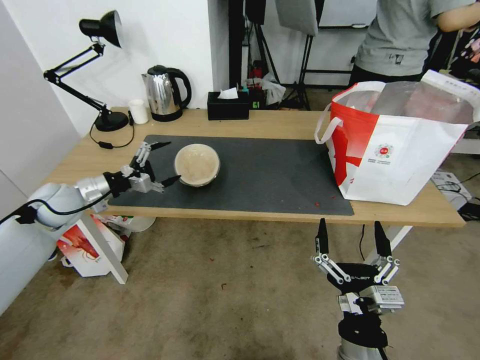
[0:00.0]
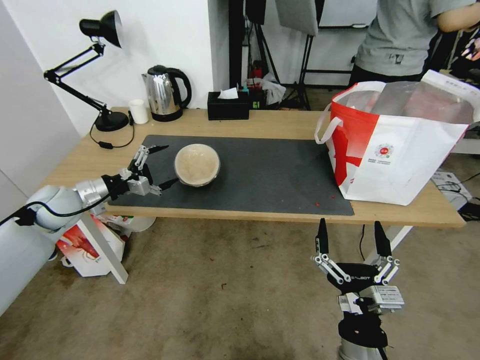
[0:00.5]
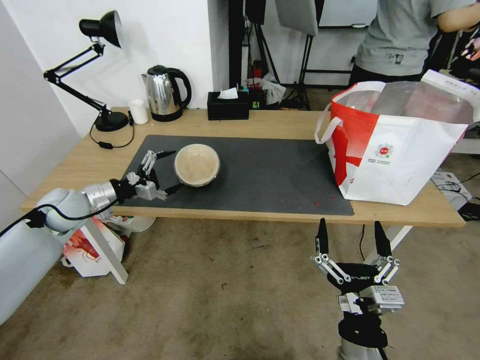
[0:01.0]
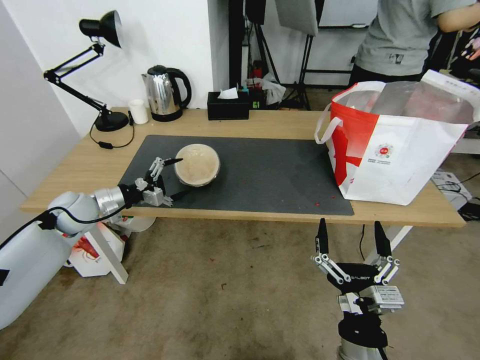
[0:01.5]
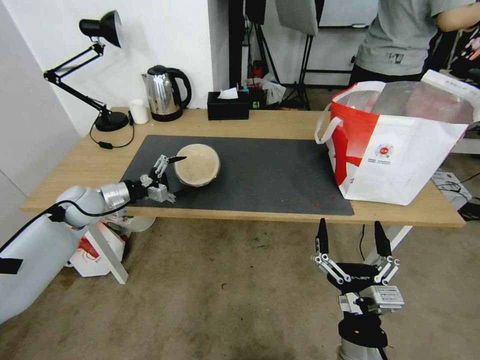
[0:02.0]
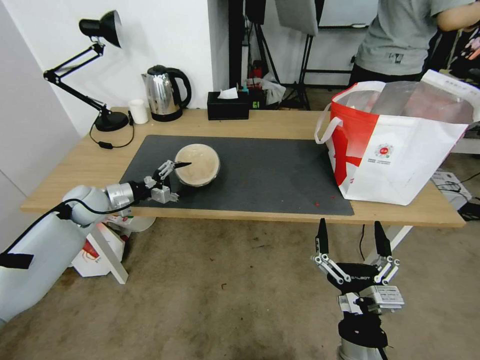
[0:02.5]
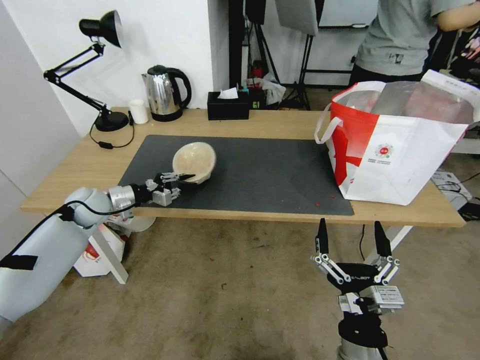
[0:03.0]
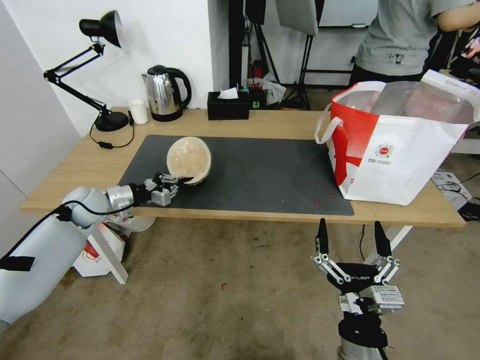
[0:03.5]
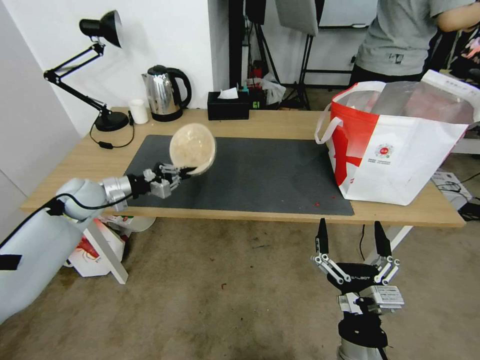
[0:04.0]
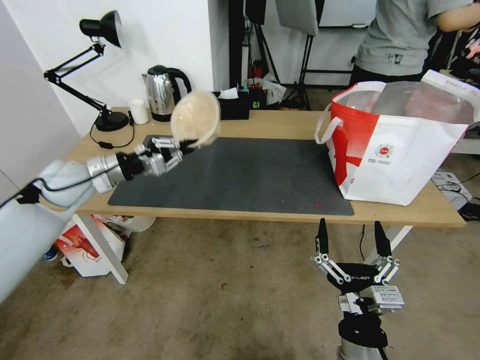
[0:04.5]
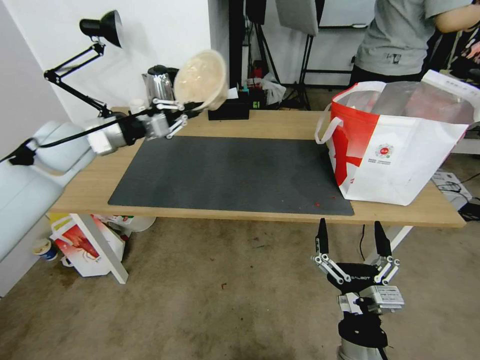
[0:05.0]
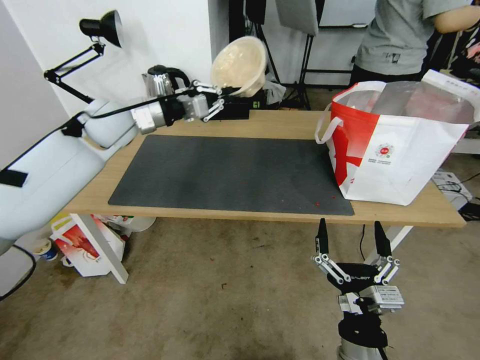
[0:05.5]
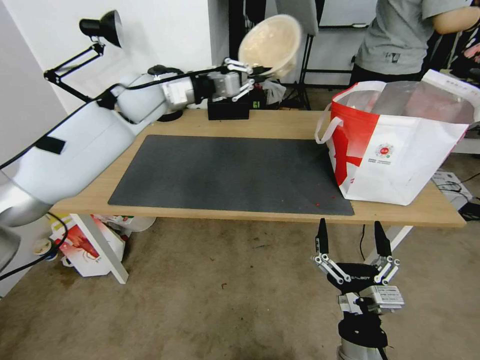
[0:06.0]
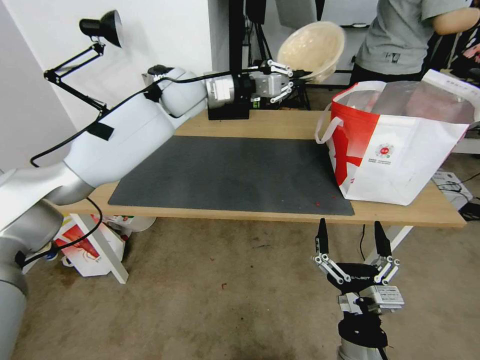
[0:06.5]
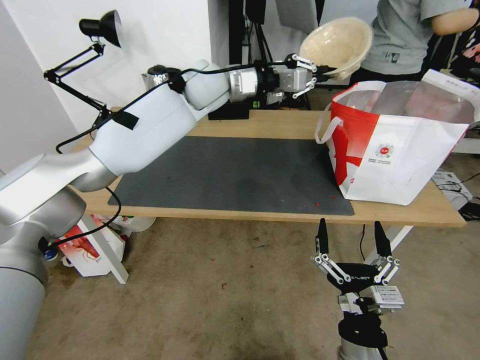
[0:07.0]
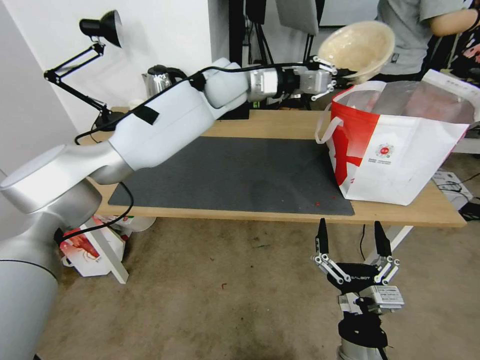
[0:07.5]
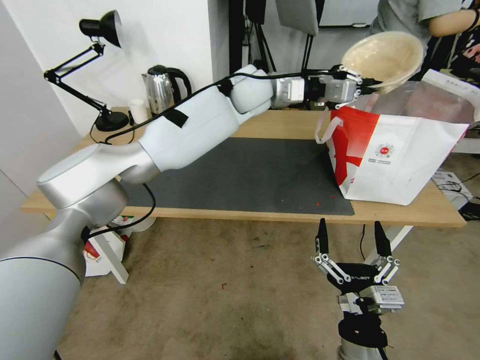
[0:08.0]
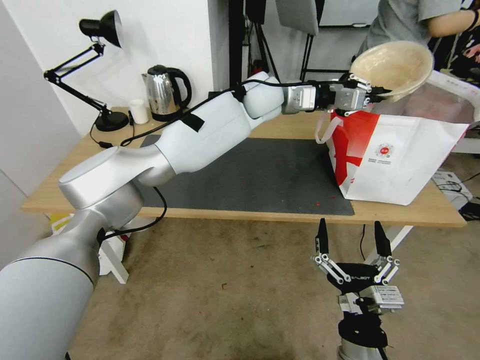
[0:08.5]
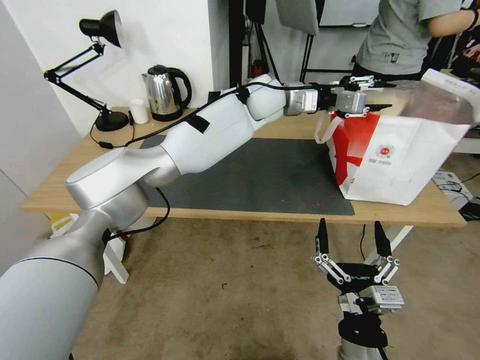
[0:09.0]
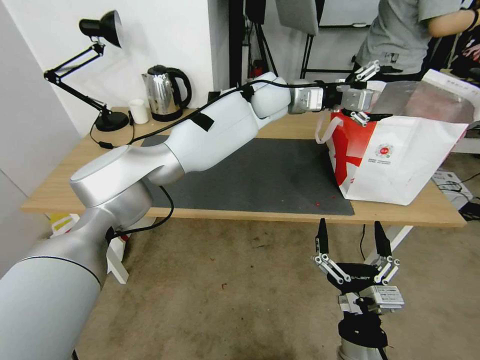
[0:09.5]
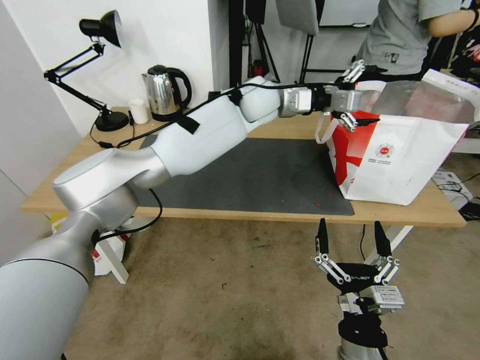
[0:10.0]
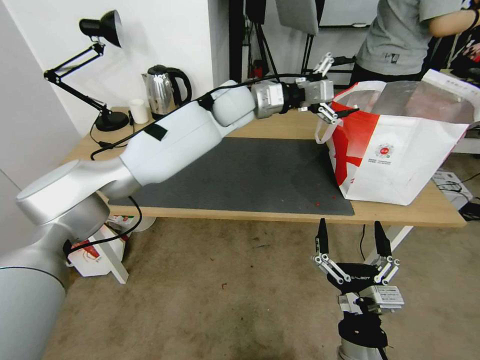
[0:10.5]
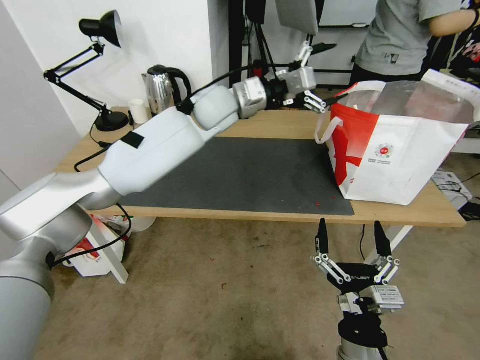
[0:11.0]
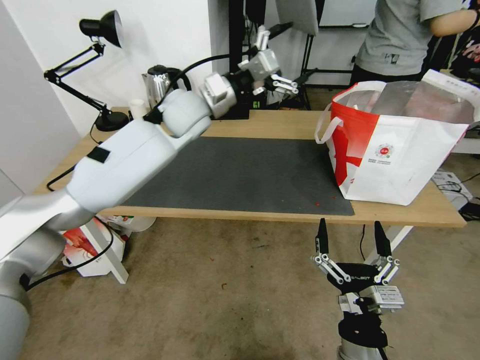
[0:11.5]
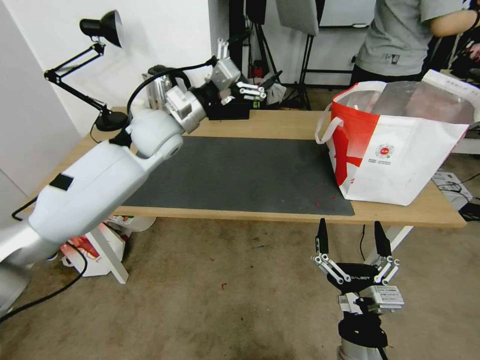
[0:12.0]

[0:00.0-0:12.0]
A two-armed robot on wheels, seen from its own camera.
Task of the whole recording: Pick up the trash from the table and place it into the takeout bag.
0:00.0 to 0:02.0: There are only small adjustments of the grippers.
0:02.0 to 0:04.0: The left gripper closes its fingers.
0:04.0 to 0:06.0: The left gripper shifts some 30 cm upward, to the right and forward.
0:06.0 to 0:08.0: The left gripper is displaced to the right by roughly 20 cm.
0:08.0 to 0:10.0: The left gripper opens its fingers.
0:10.0 to 0:12.0: The left gripper heads to the left and backward, covering approximately 25 cm.

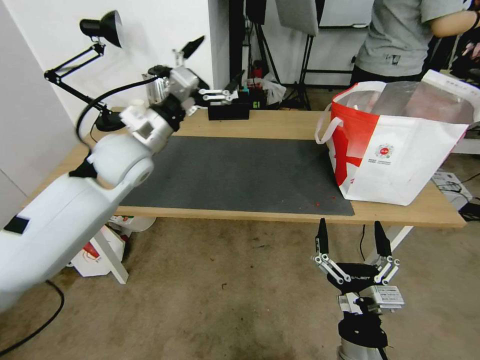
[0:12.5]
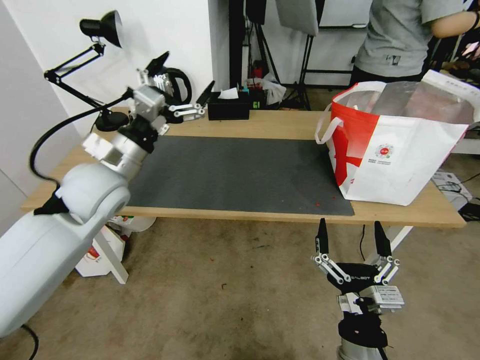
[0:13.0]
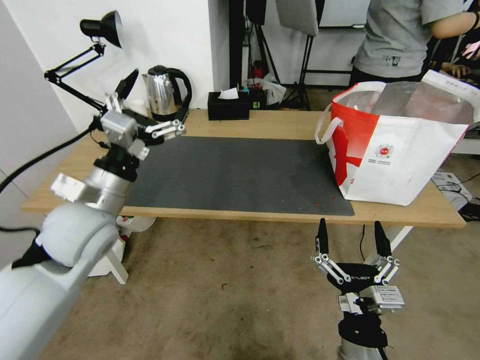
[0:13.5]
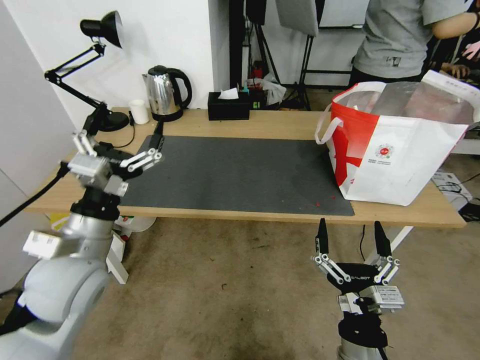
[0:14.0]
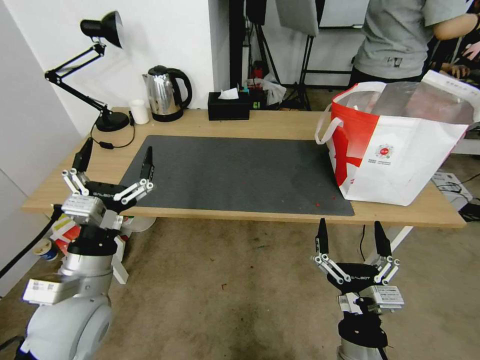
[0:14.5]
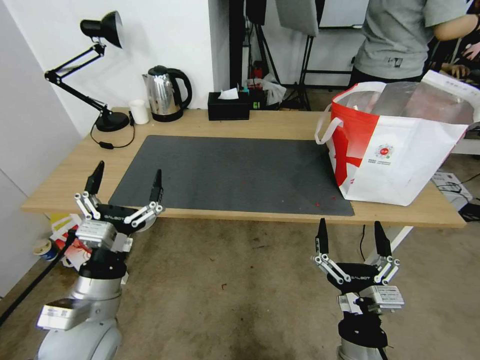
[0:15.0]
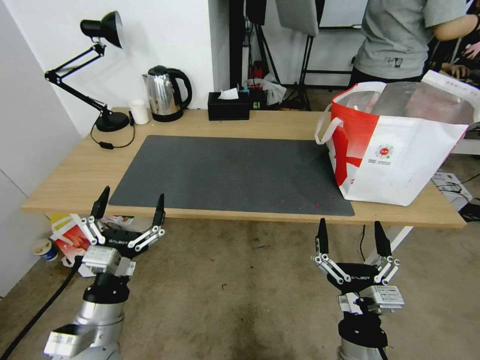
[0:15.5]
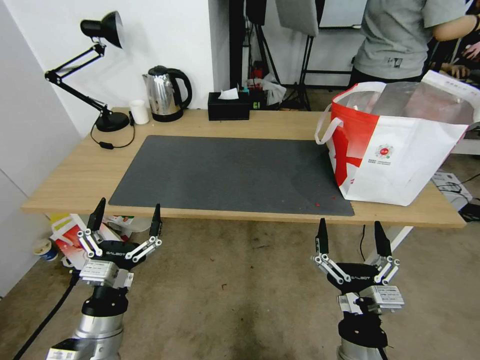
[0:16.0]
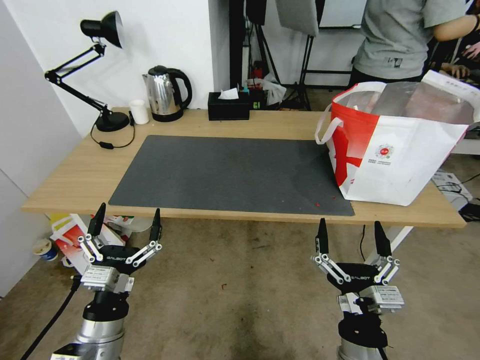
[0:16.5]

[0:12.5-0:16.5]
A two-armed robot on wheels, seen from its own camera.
Task of the whole recording: Pick up the trash from the table and place it into the takeout bag.
0:12.5 to 0:14.5: The left gripper shifts roughly 25 cm backward and downward.
0:14.5 to 0:16.5: The left gripper moves downward and backward, approximately 15 cm.
